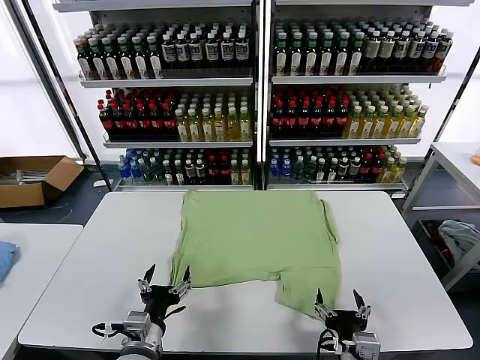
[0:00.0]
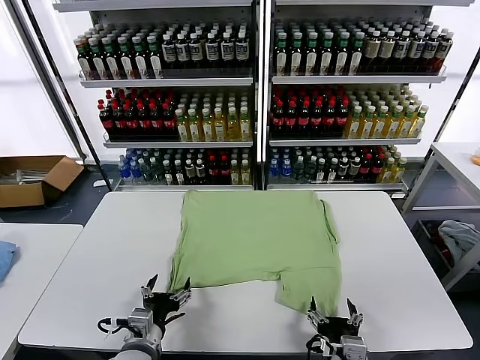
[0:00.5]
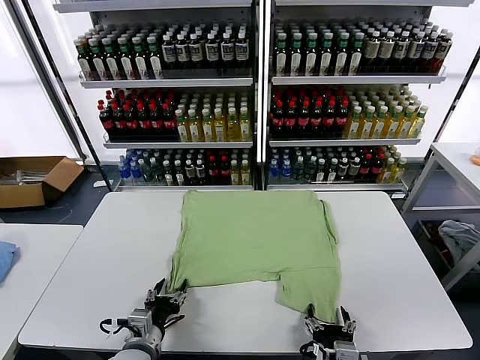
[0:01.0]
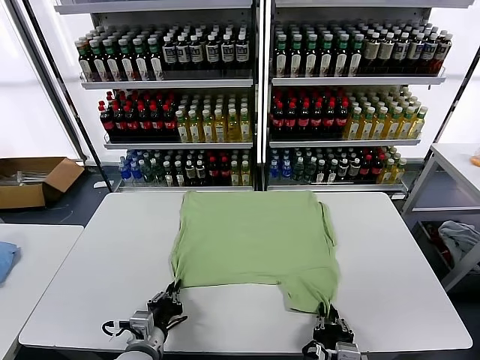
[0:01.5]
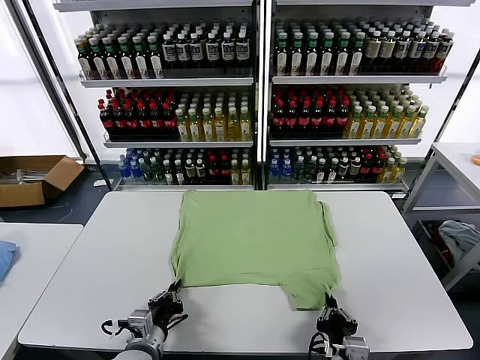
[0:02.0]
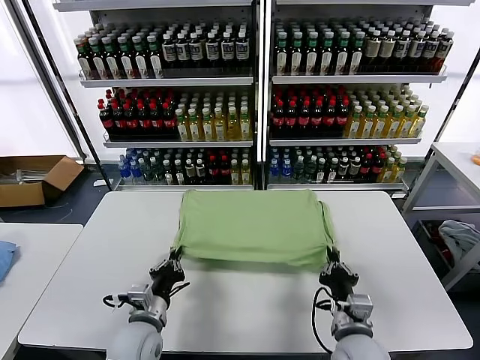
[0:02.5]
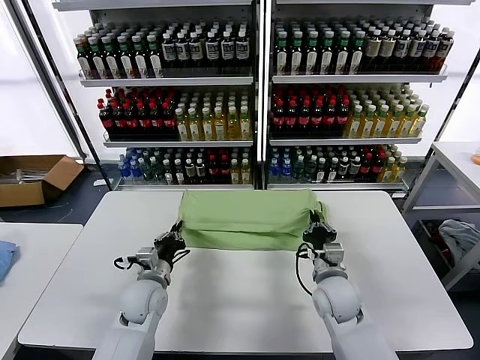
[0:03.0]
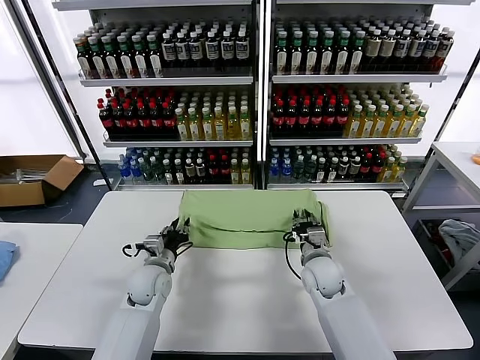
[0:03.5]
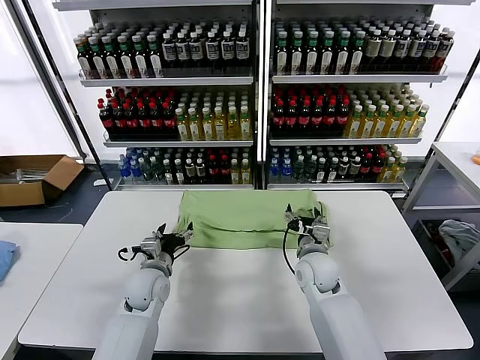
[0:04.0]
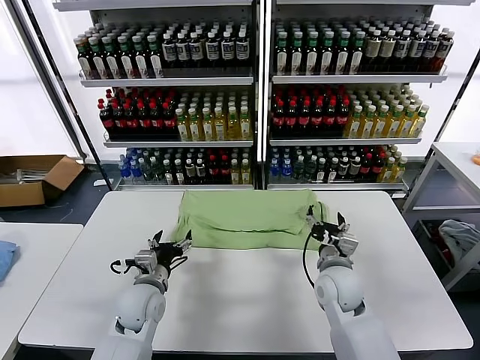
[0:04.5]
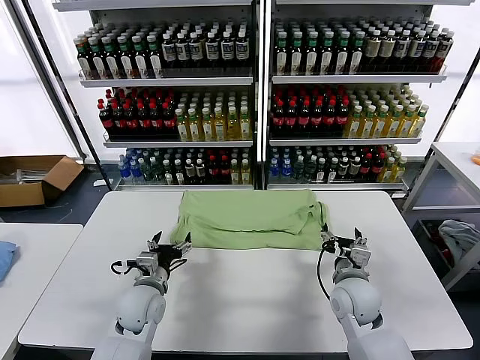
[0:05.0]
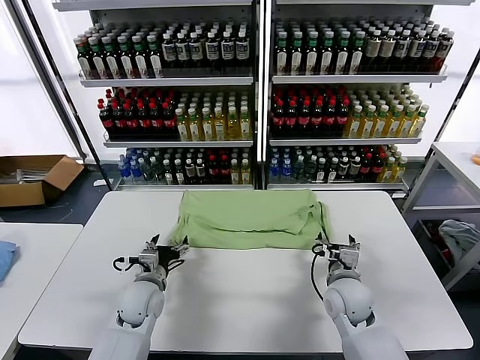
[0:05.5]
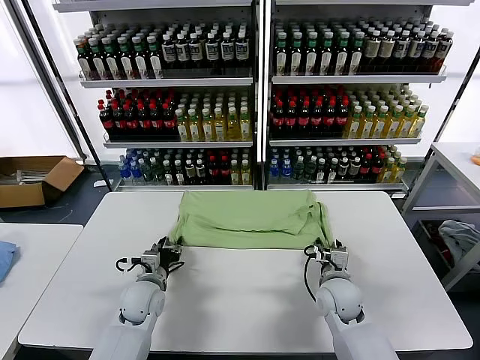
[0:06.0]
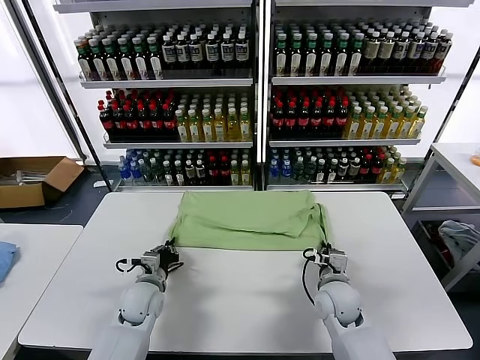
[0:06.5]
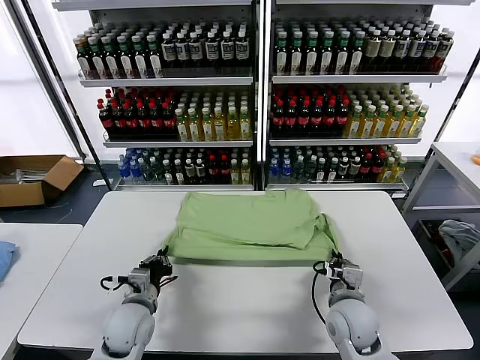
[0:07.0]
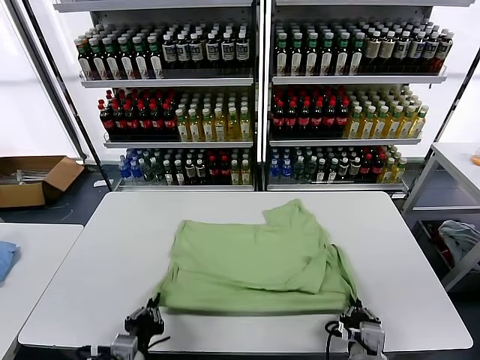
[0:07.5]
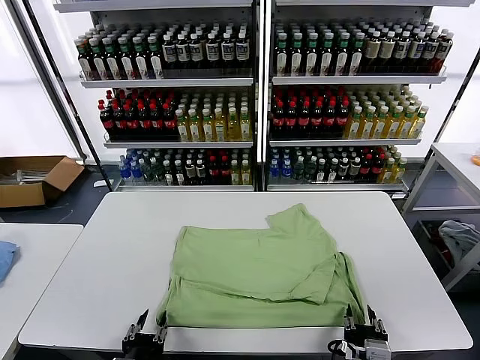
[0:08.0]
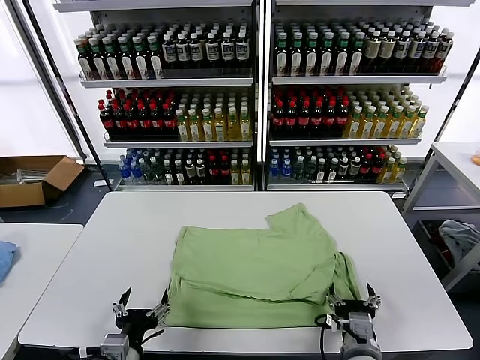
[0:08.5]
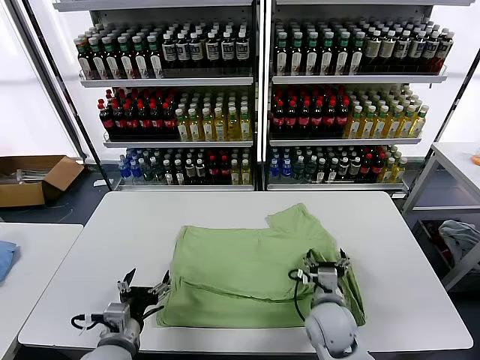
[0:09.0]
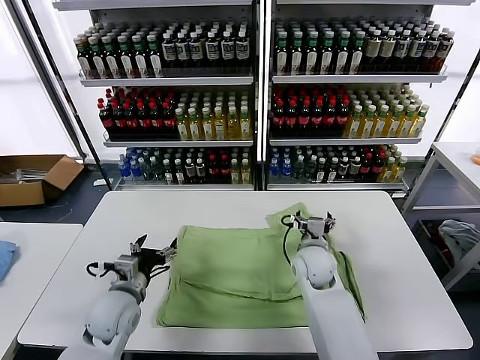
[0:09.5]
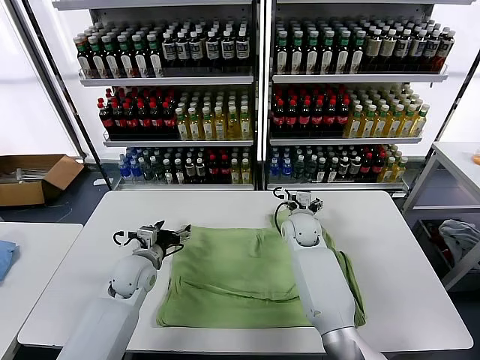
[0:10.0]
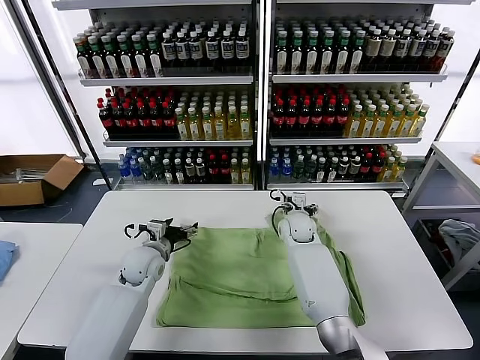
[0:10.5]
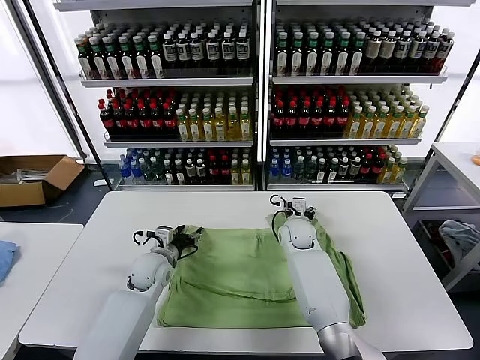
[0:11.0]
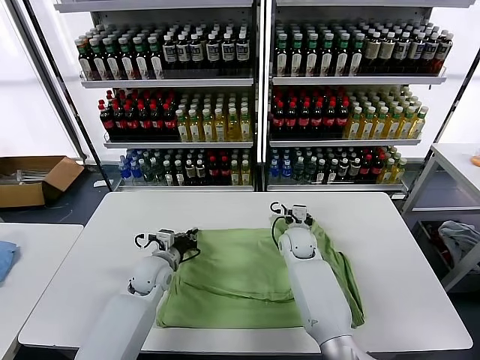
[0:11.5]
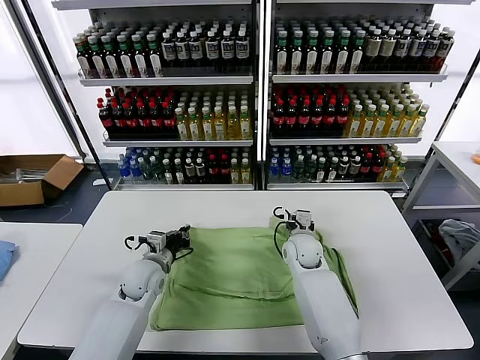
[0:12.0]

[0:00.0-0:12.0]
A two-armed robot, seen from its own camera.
Task of the whole recording: fold and organize the clothes.
Step, 0.0 to 1.5 s: use both grippers simultaneously to clamp the lower edge of the clothing fabric.
Step, 2.0 to 3.5 s: use both grippers to drag the lower edge of the fabric forward and fold it over the upper edge.
Step, 4.0 to 8.0 s: Drag the clothes downward with both gripper.
Step, 8.5 to 11.5 s: use both grippers simultaneously to clamp the upper edge of the clothing fabric.
2.0 to 4.0 s: The grippers both shift forward by roughly 20 cm. The right gripper opens up. Meanwhile the left gripper opens its fingers.
4.0 to 6.0 s: The right gripper changes place by some 5 cm, and closes up; the left gripper closes.
6.0 to 8.0 s: Both grippers move backward, approximately 25 cm. The right gripper closes and opens again. Meanwhile the left gripper closes, then opens again.
8.0 to 10.0 s: The grippers both shift forward by roughly 35 cm. The left gripper opens. The right gripper opens its fingers.
10.0 to 12.0 s: The left gripper closes its fingers. Meanwhile the right gripper shifts approximately 5 cm backward, and closes its fingers.

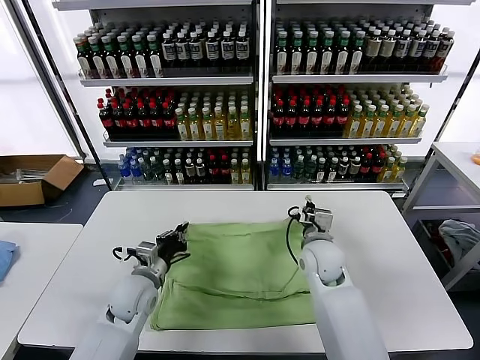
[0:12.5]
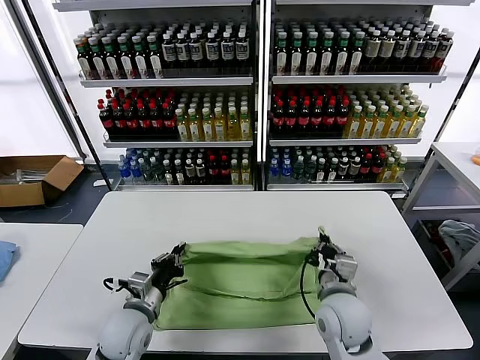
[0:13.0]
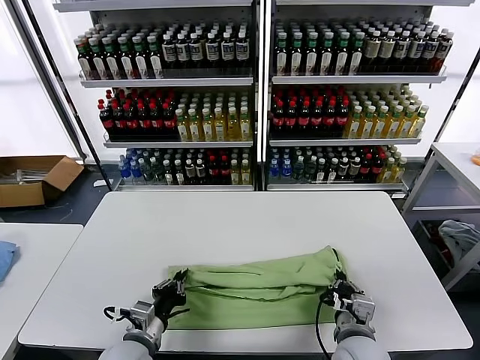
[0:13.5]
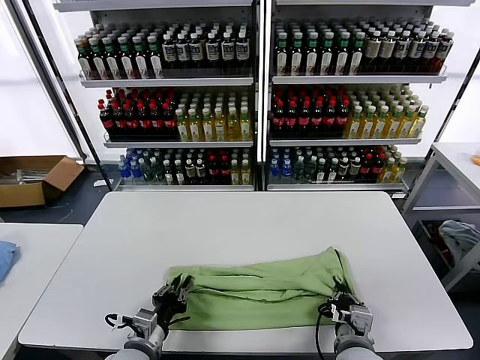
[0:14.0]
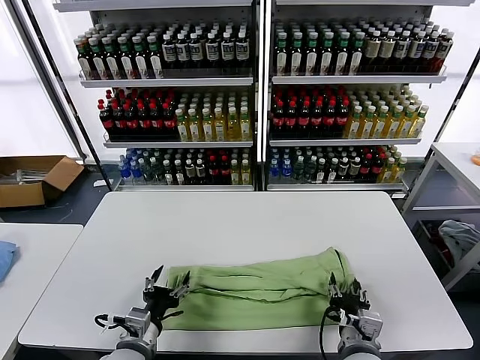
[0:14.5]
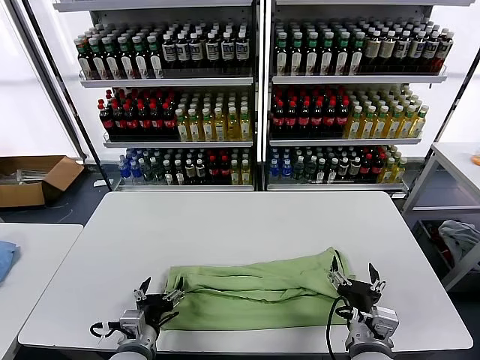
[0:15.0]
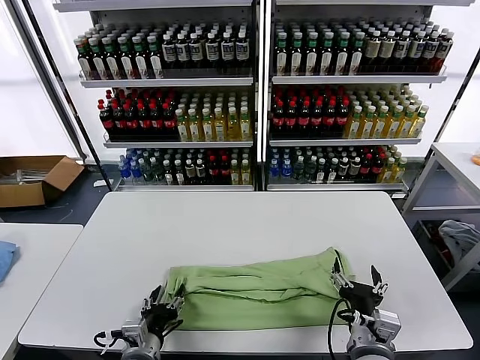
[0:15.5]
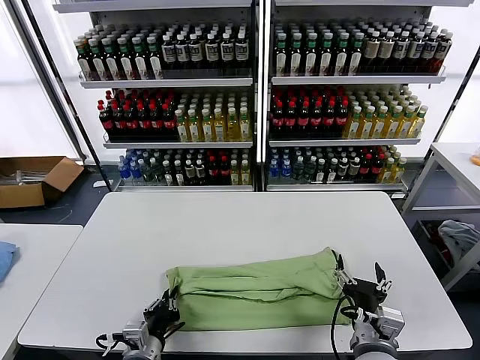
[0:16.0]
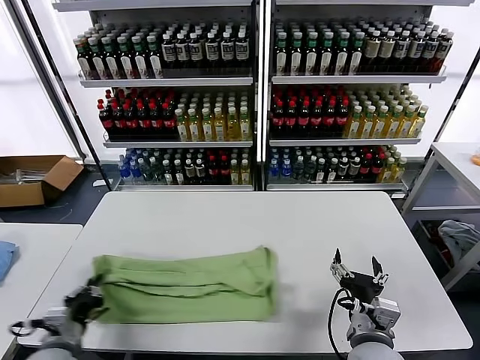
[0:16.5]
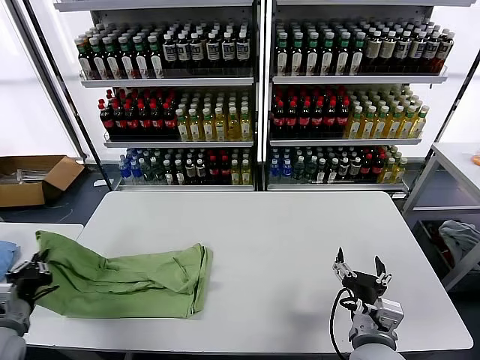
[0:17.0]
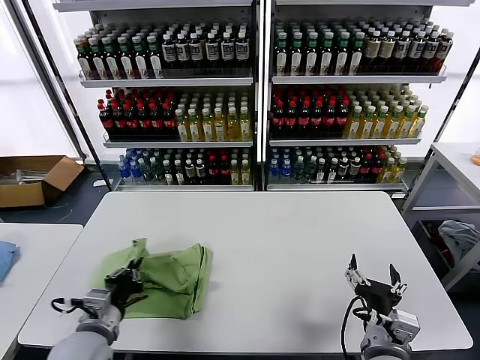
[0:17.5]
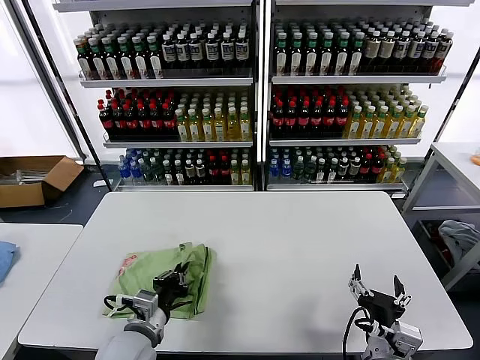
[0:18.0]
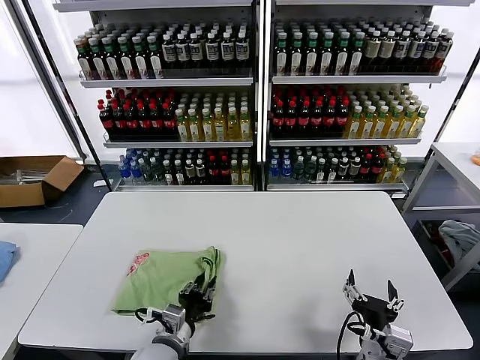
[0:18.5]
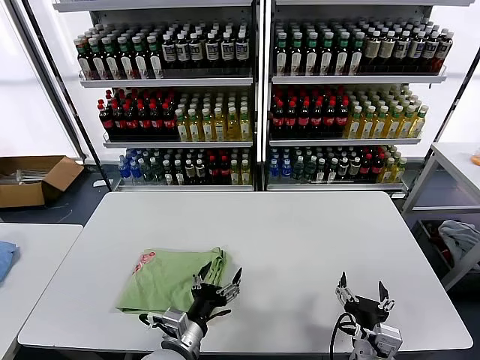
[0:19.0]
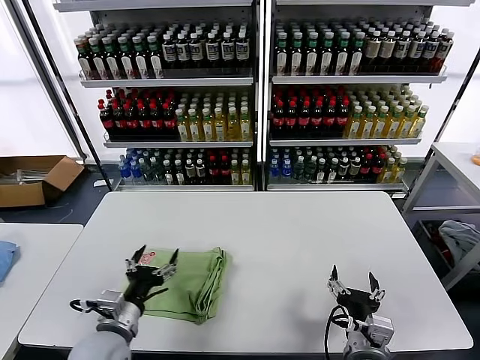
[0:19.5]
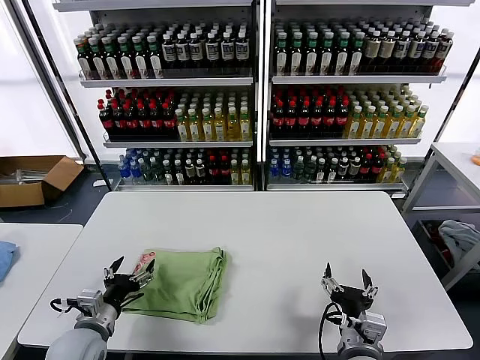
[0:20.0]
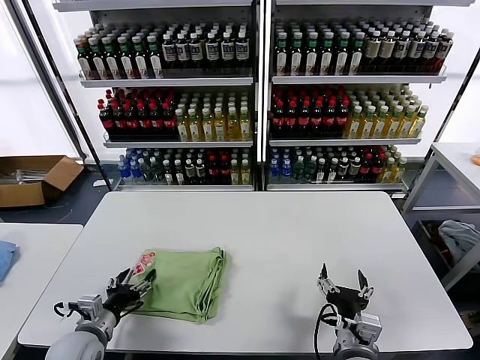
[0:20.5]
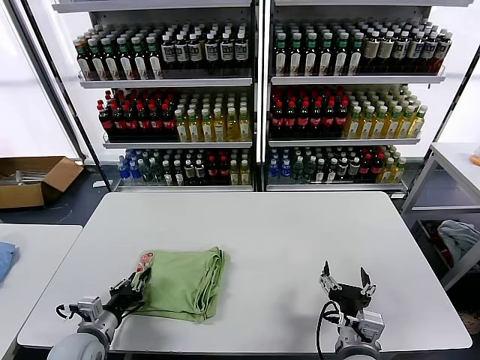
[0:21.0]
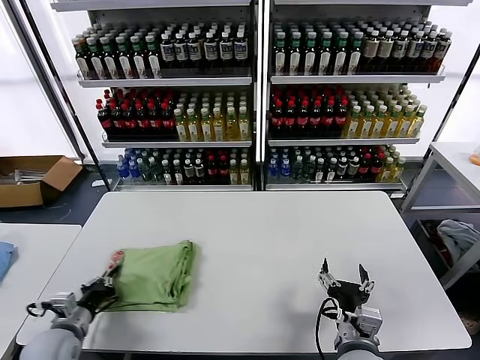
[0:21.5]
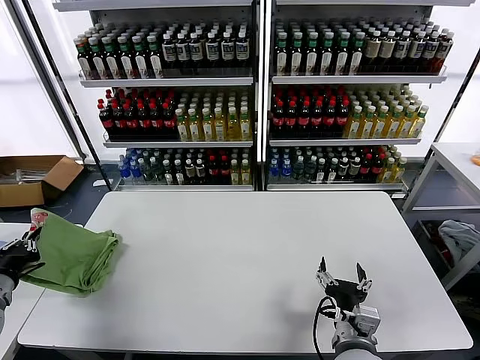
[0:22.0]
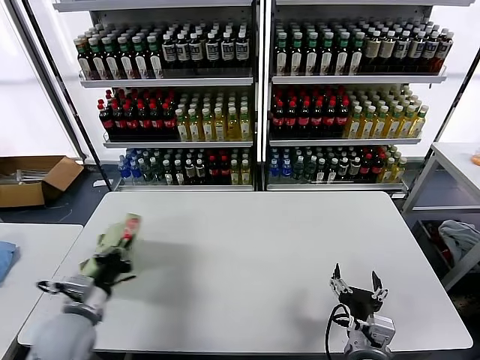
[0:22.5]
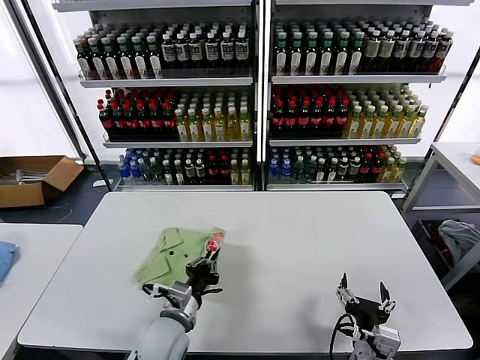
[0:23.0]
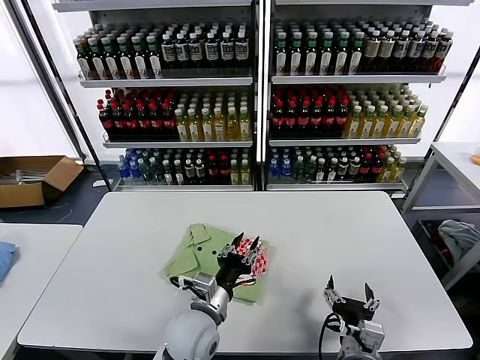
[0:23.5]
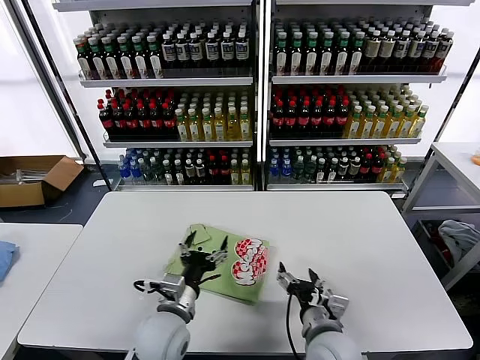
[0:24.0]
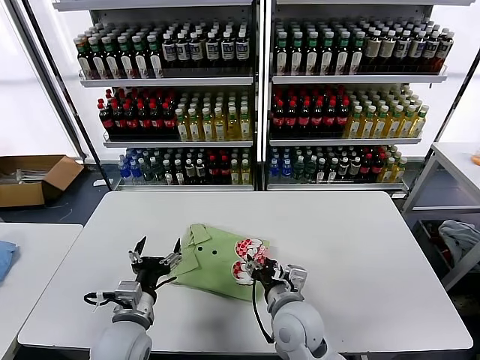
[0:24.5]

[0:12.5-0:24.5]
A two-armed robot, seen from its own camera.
Task of the whole recording: fold and organize the clothes.
Step, 12.5 to 14.5 s: use both grippers to drag the upper edge of the fabric backward and fold it over the lower edge.
Step, 15.0 to 15.5 s: use the left gripper to clamp the left edge of the fabric.
Step, 16.5 to 19.0 s: use the left gripper to drag the left edge of the fabric to the left and folds it over the right edge.
Step, 19.5 to 23.5 s: Flip the folded clothes over with left gripper.
12.5 to 14.5 s: Both grippers travel together backward, roughly 20 cm. The right gripper opens up; the left gripper opens.
14.5 to 16.5 s: The left gripper is displaced to the left by approximately 10 cm, and closes up.
16.5 to 18.5 s: The left gripper shifts about 15 cm to the right.
18.5 to 20.5 s: The left gripper shifts approximately 15 cm to the left, and opens.
20.5 to 22.5 s: The left gripper travels upward by roughly 5 cm, travels to the left and back again, some 15 cm each way, and closes.
22.5 to 24.5 s: The left gripper heads to the right, covering some 15 cm, and opens up, while the right gripper is displaced to the left and forward by about 15 cm.

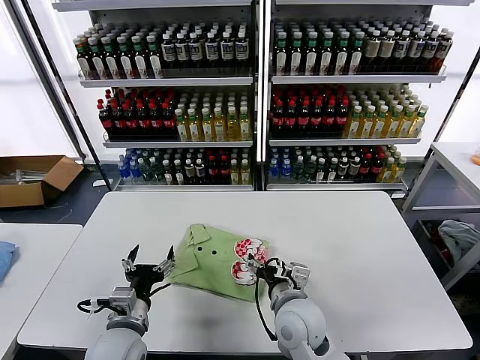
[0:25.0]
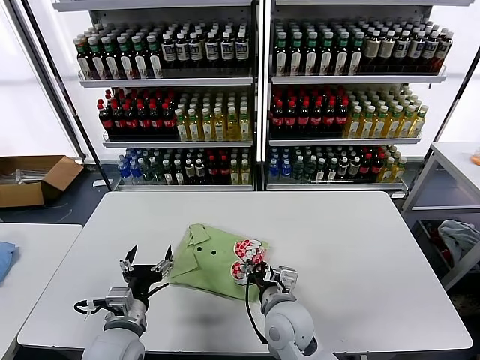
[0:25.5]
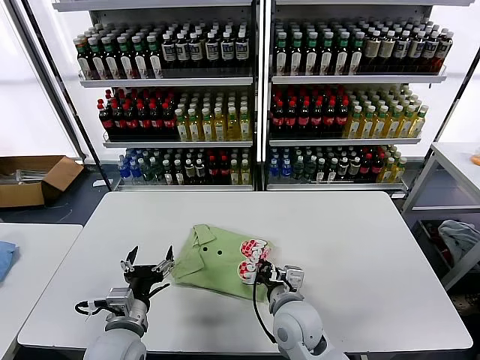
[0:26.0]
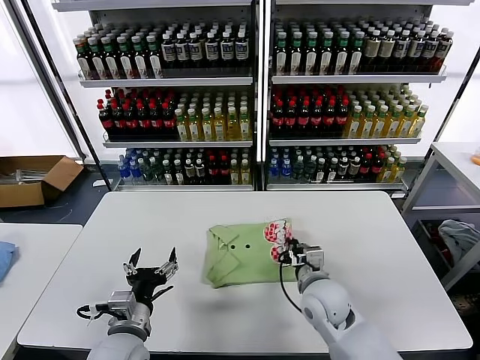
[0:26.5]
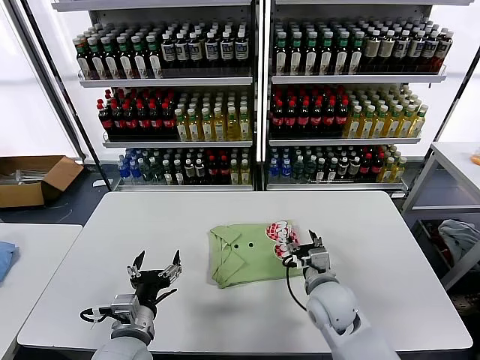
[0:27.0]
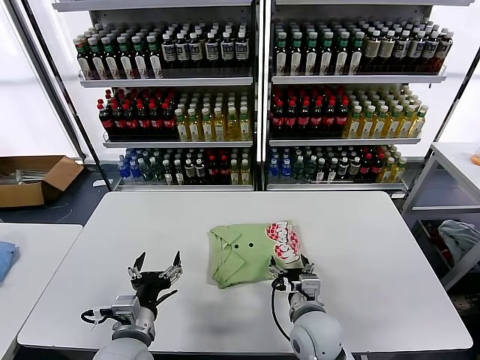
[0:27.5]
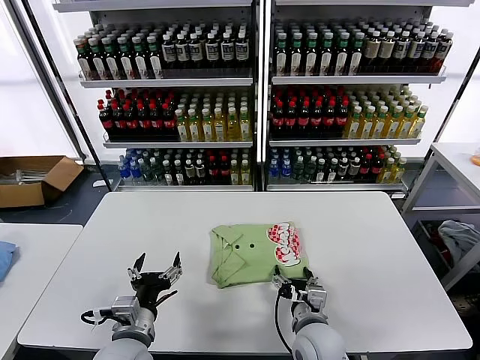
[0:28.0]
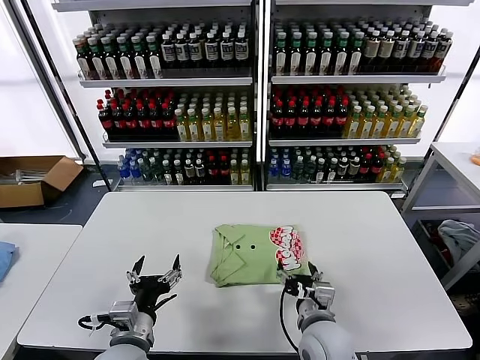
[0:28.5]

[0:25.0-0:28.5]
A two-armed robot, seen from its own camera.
Task of the whole recording: fold and organize the clothes.
25.0 to 27.0 s: The right gripper moves to the right, roughly 10 cm, and closes, then opens again.
27.0 to 28.5 s: The right gripper is displaced backward by approximately 10 cm.
